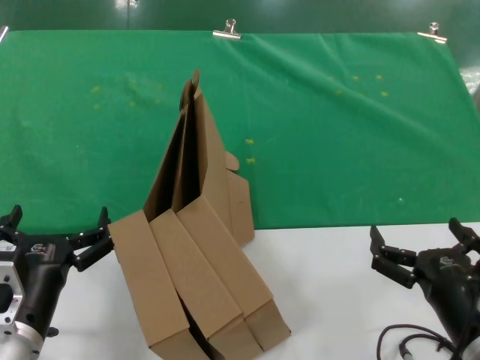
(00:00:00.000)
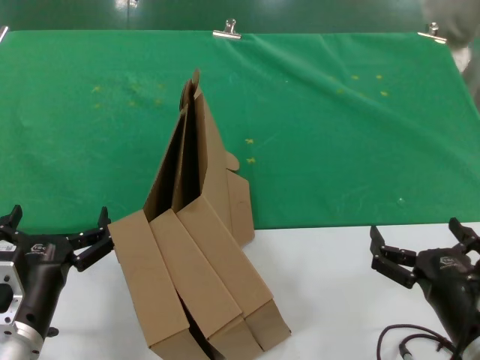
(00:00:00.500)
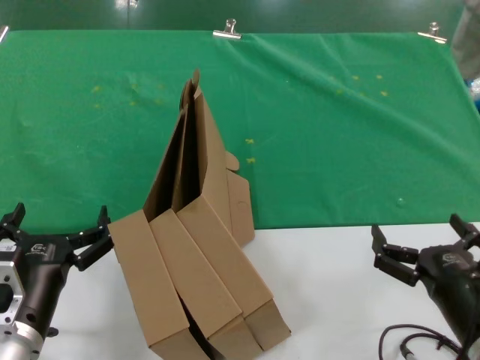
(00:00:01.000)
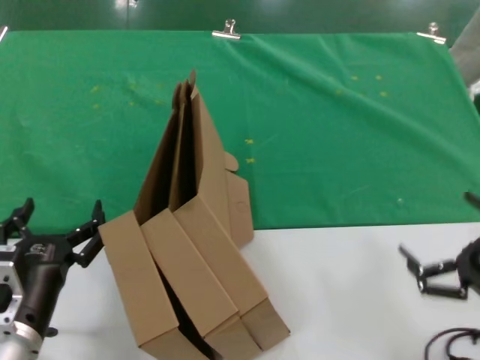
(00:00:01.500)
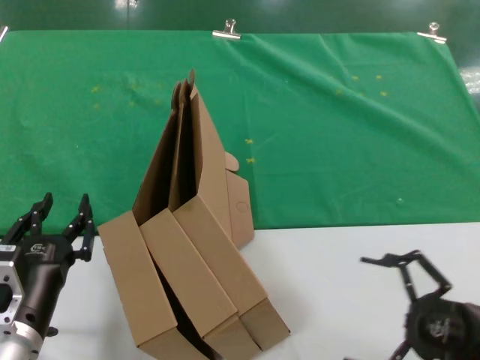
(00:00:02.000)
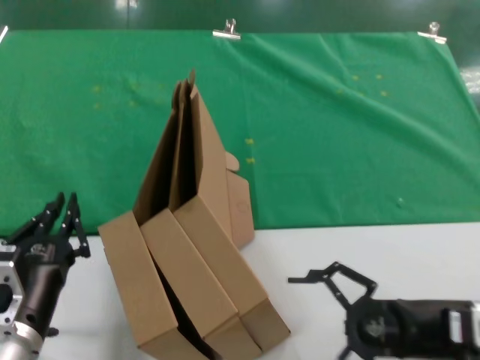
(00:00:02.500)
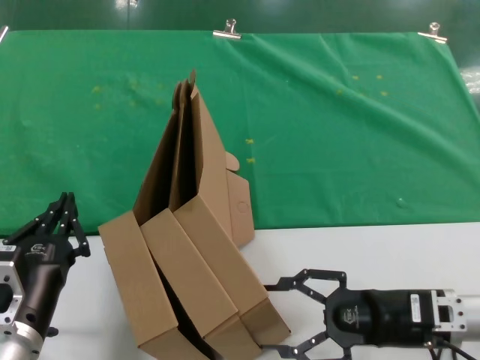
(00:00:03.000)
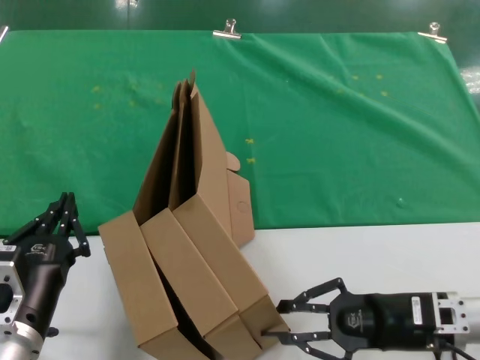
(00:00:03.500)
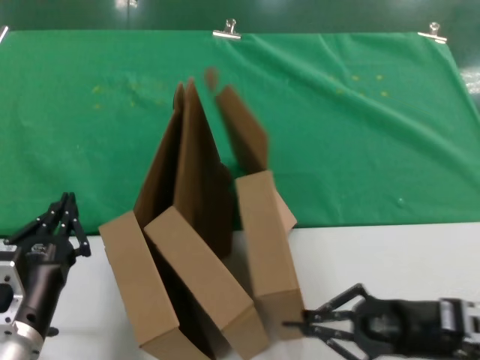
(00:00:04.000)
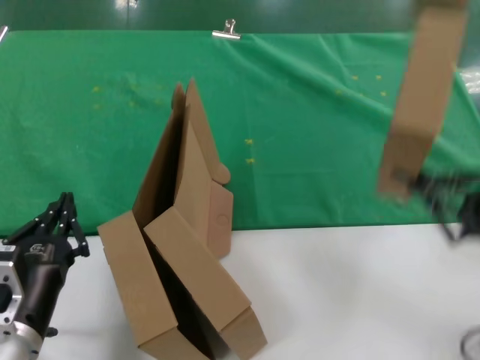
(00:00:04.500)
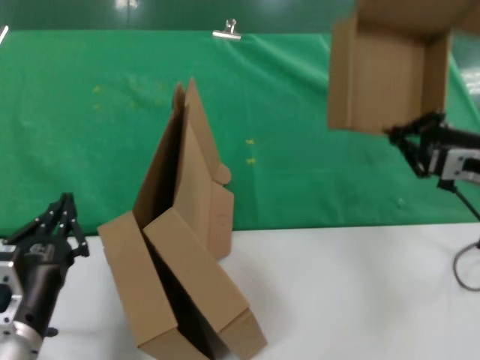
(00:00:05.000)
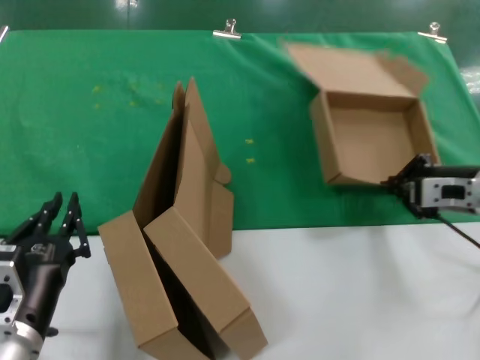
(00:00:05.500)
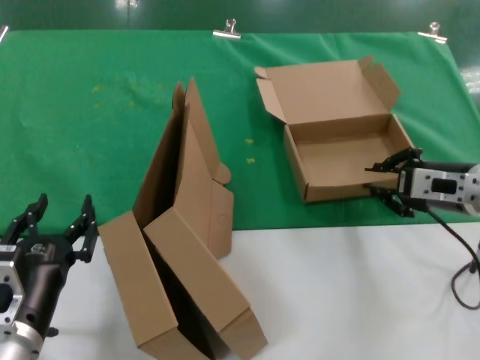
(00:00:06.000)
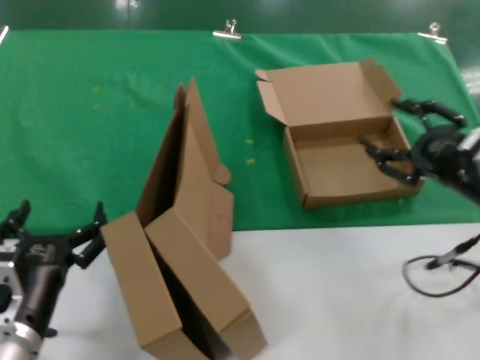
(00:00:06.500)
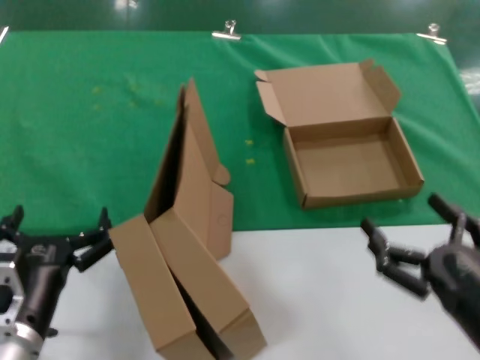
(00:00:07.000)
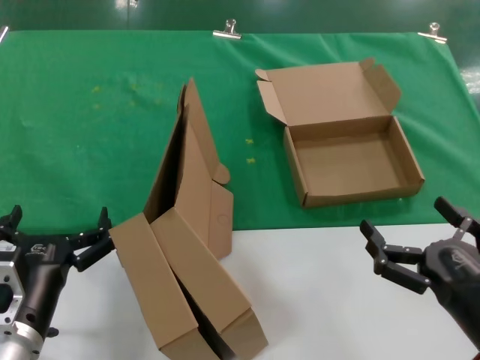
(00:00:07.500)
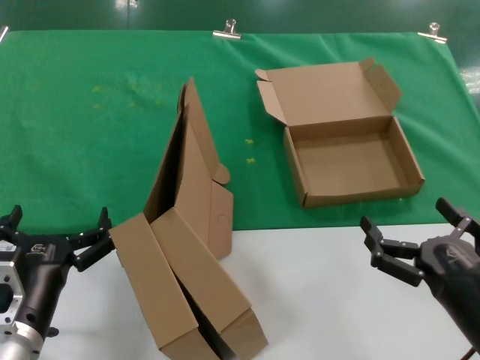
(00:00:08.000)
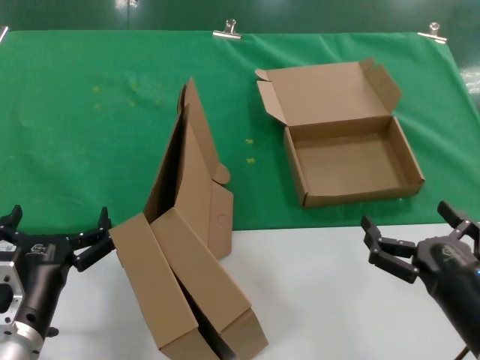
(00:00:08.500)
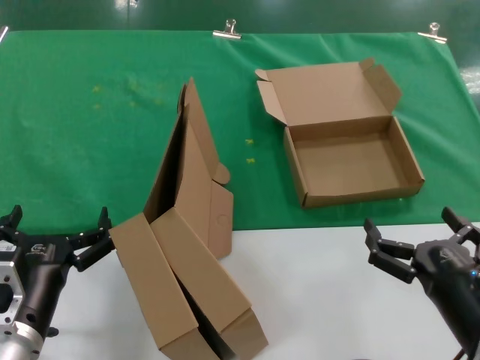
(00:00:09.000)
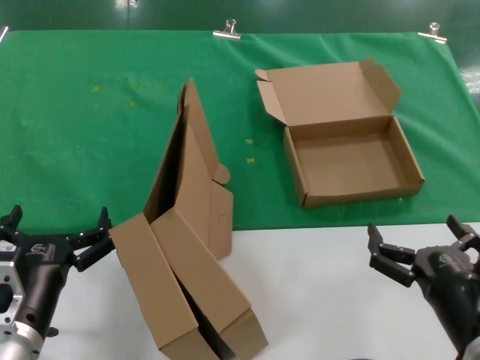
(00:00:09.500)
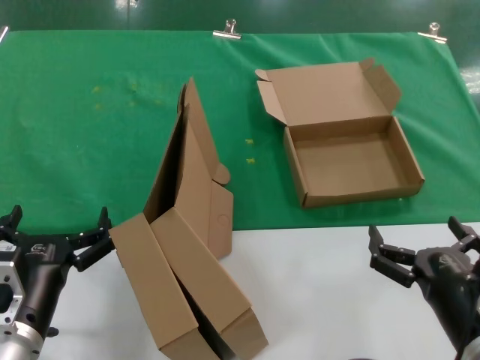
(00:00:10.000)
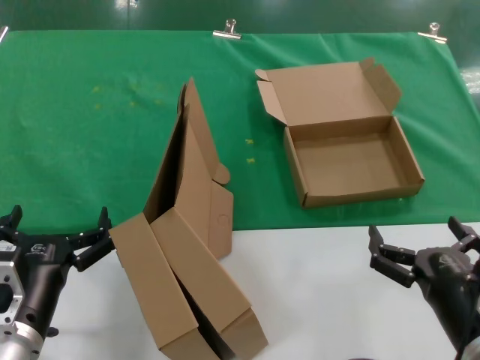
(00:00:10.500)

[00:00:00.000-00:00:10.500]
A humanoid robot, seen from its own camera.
Task of the whole recording: pick up the paper box and put it at the back.
Step, 00:00:00.000 to 00:00:03.500: Grasp the paper box.
Step, 00:00:04.000 to 00:00:05.500: Place the paper box on the table.
00:00:00.000 to 00:00:02.000: The right hand shifts some 15 cm to the right.
00:00:02.000 to 00:00:04.000: The right hand shifts about 10 cm forward and to the left.
00:00:04.000 to 00:00:06.500: The right hand shifts roughly 15 cm upward.
00:00:06.500 to 00:00:08.500: The right hand shifts approximately 20 cm backward, downward and to the left.
00:00:08.500 to 00:00:10.500: The hands make only small movements.
